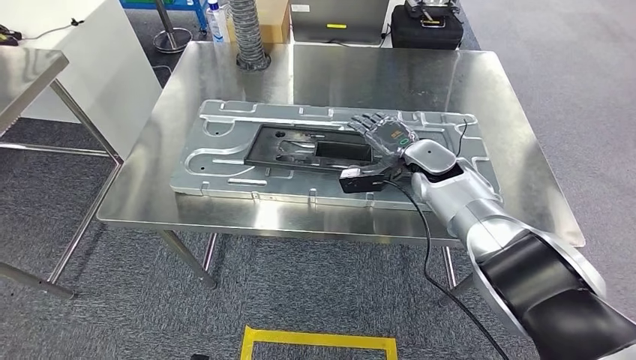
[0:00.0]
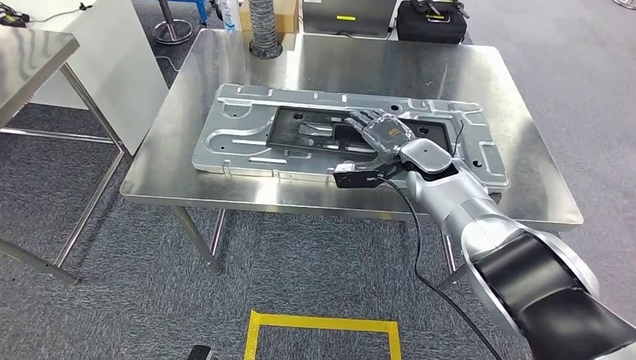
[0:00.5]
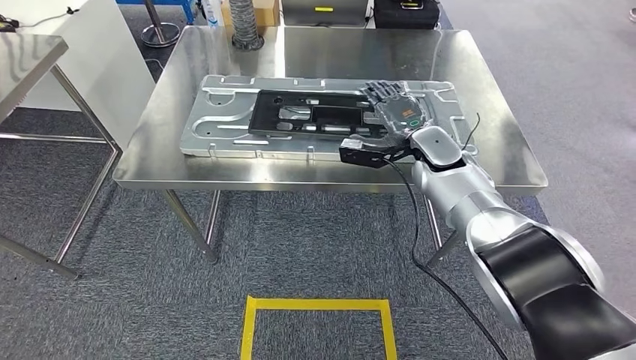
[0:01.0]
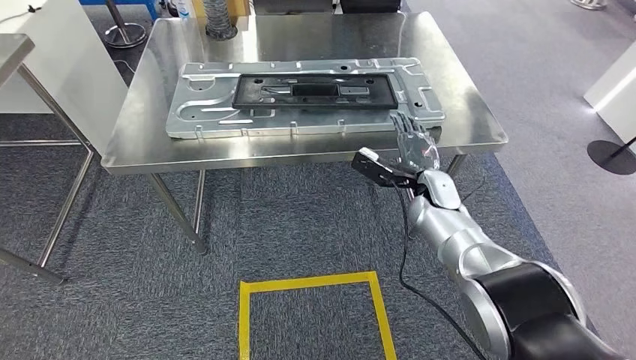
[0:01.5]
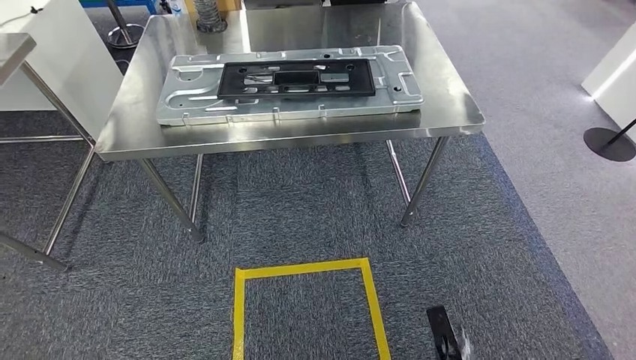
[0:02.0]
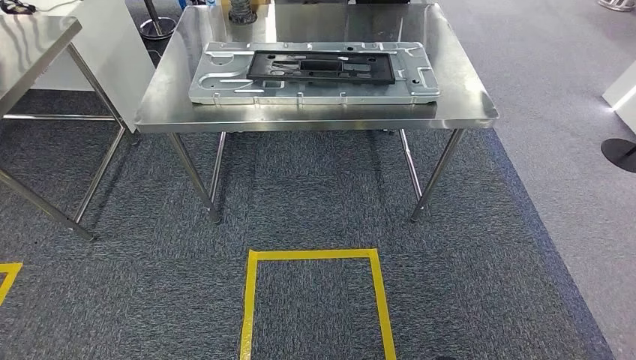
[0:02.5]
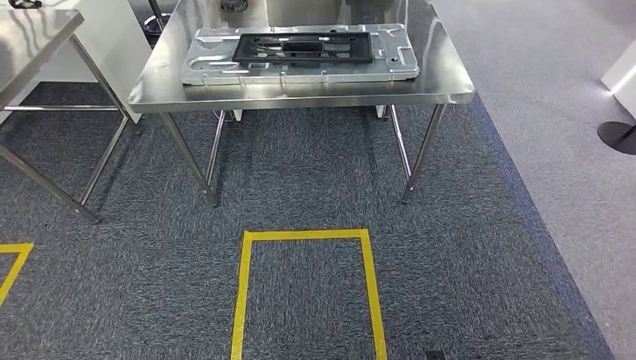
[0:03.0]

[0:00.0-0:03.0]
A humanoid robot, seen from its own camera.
Step, 0:01.5 to 0:03.0: Move to the initial position of the shelf.

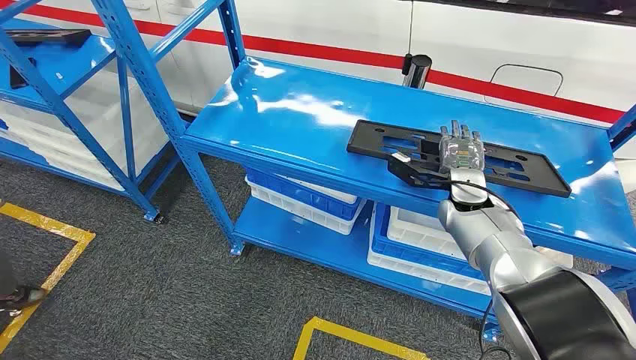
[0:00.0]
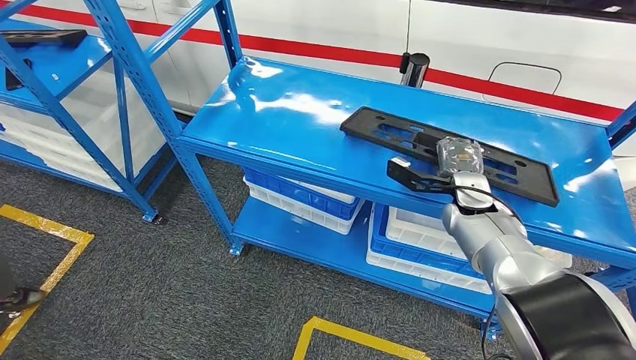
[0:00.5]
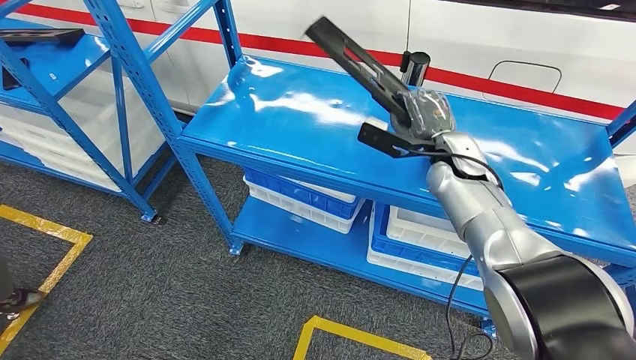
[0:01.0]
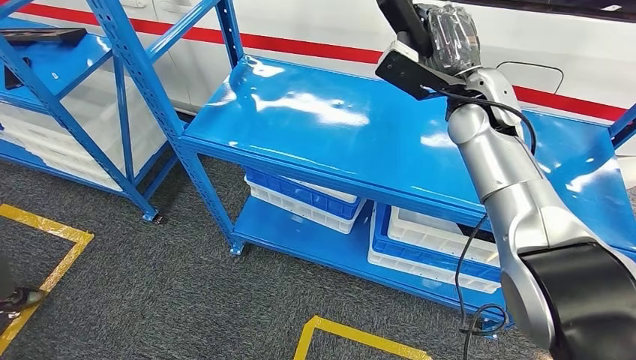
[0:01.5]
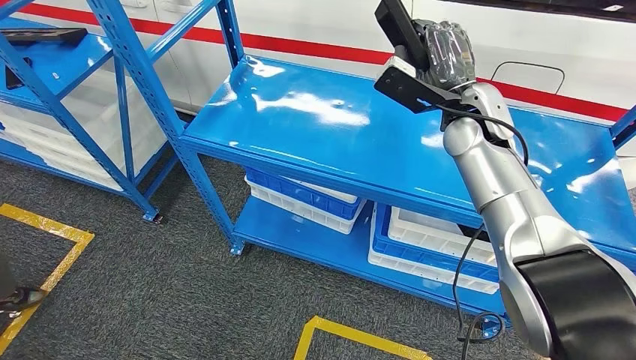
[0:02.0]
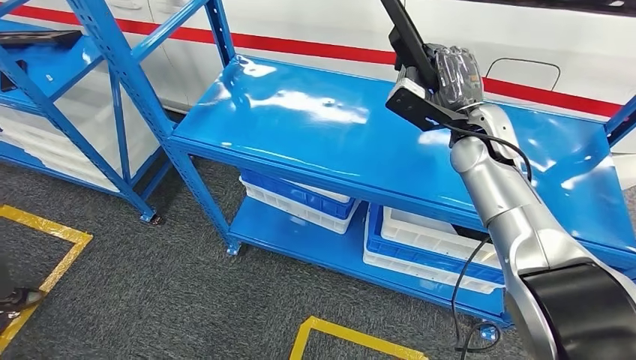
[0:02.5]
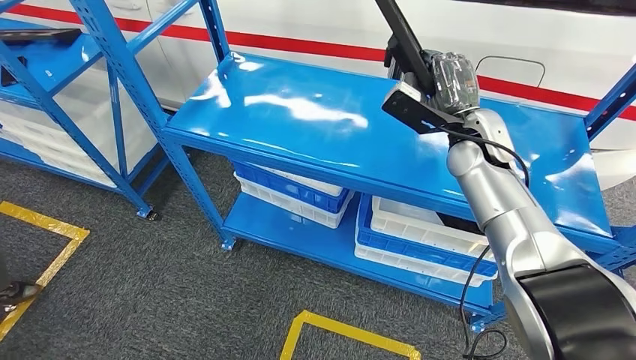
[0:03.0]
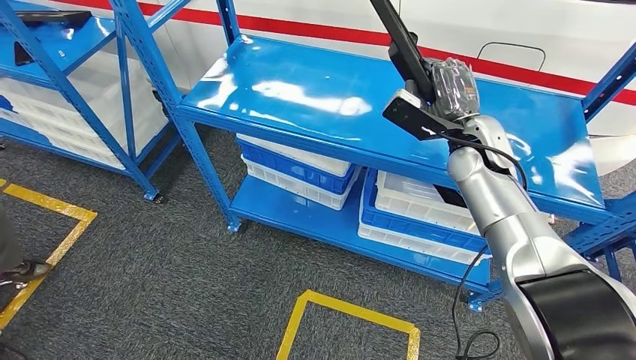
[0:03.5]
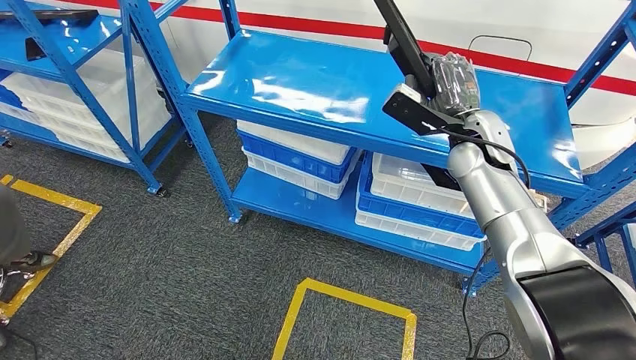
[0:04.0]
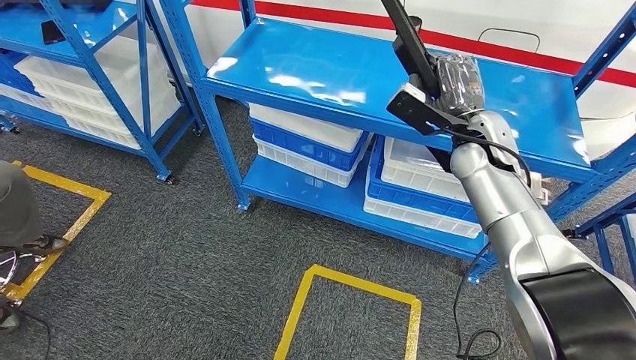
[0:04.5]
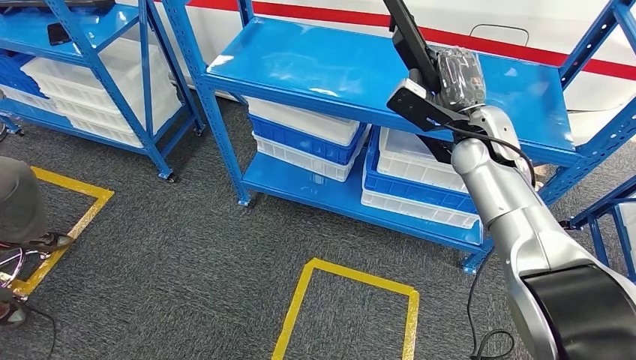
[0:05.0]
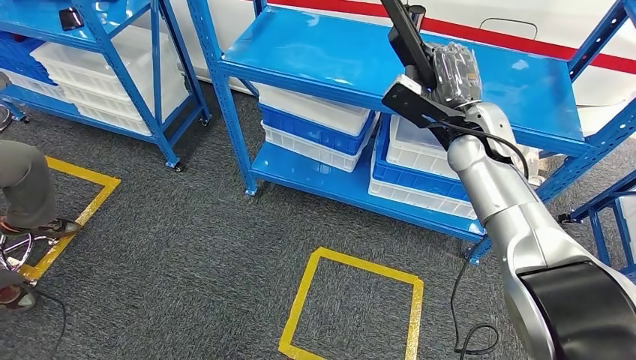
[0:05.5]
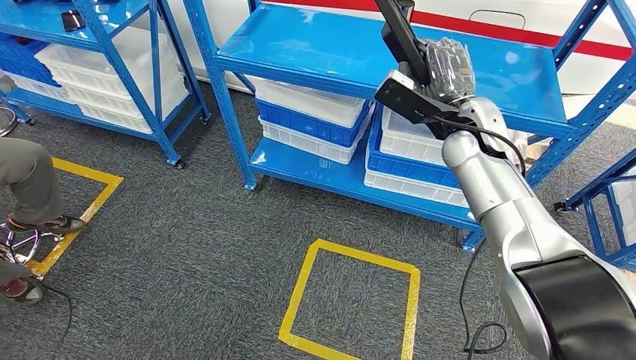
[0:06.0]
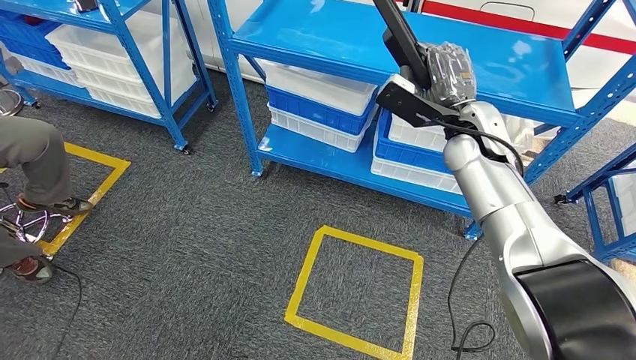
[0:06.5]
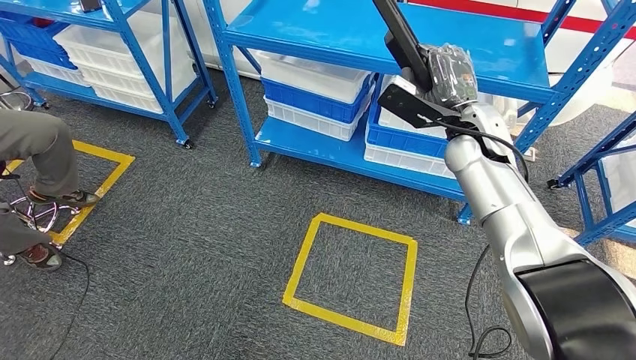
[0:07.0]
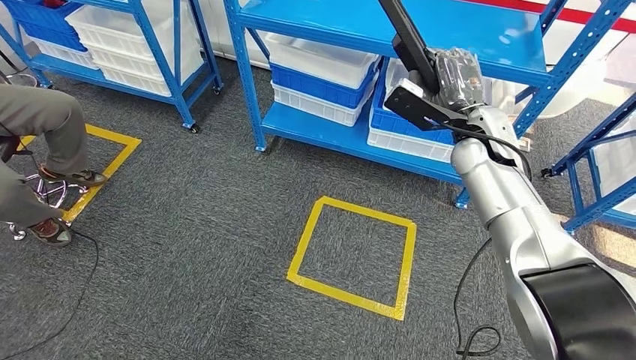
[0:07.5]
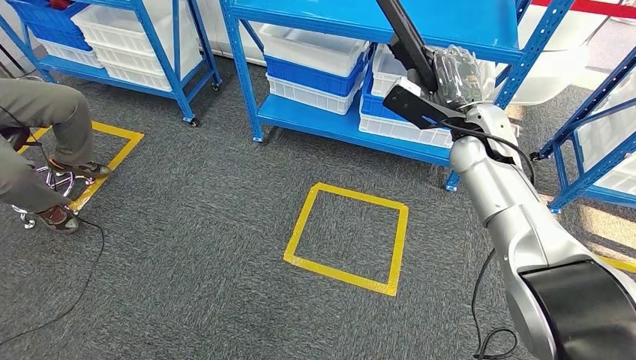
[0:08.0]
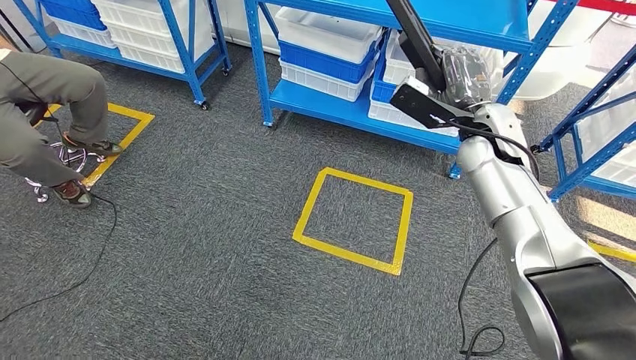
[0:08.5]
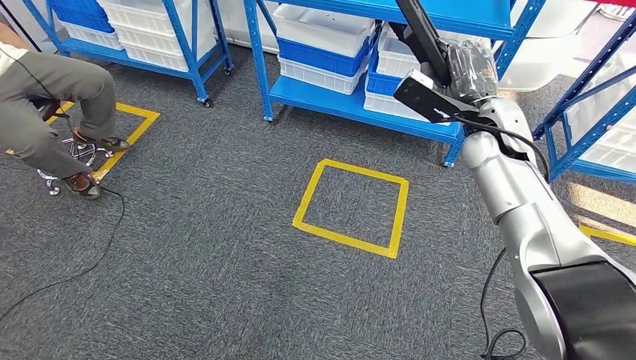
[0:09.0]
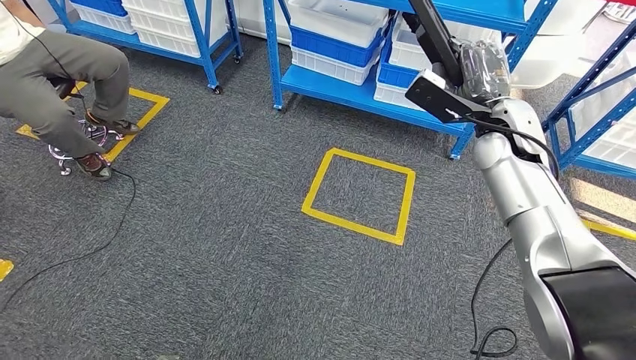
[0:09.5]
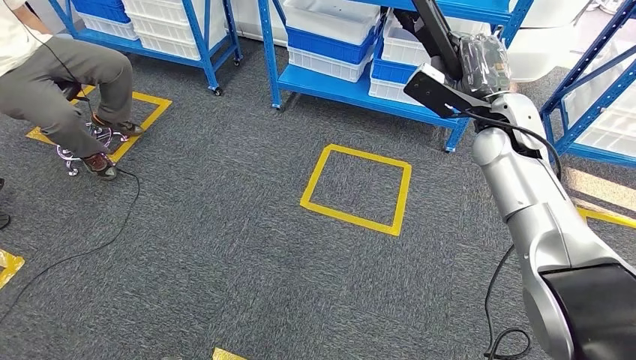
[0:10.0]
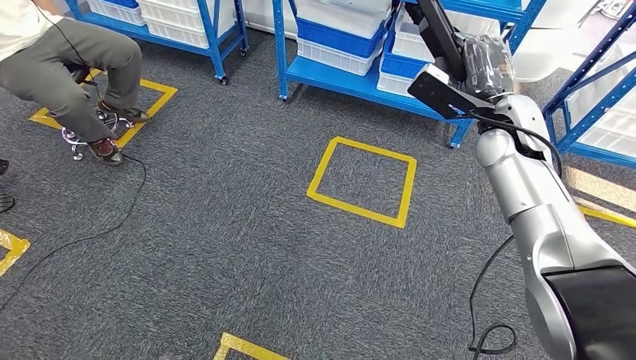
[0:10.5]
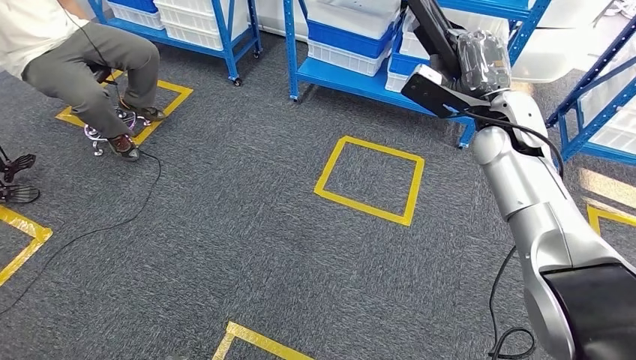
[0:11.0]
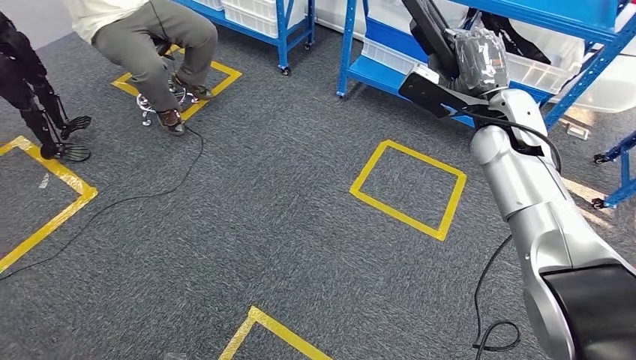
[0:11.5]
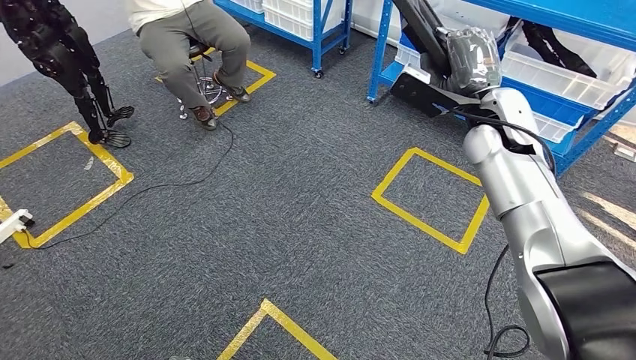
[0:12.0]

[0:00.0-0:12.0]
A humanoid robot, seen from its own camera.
Step, 0:00.0 to 0:04.5: Pick up the large material from the shelf.

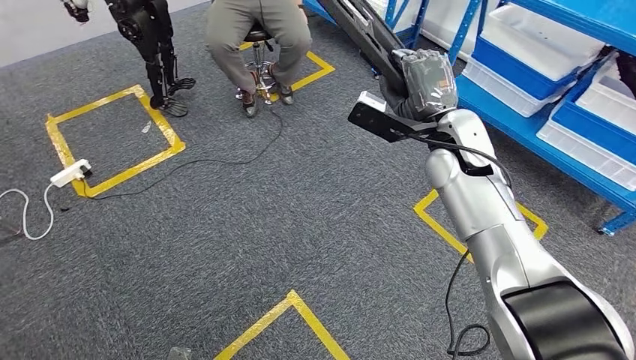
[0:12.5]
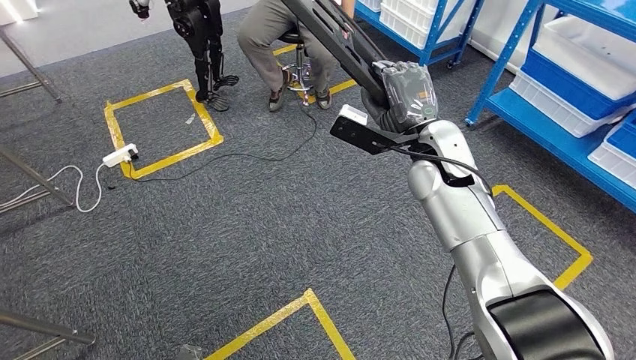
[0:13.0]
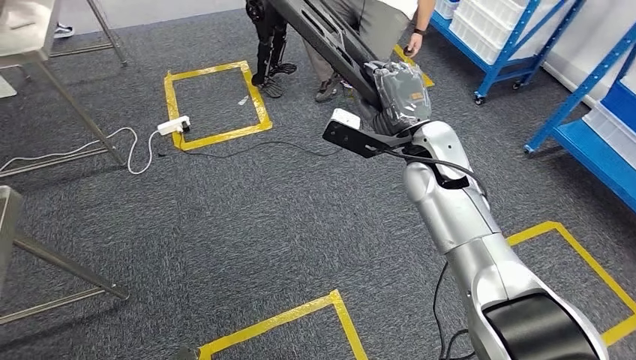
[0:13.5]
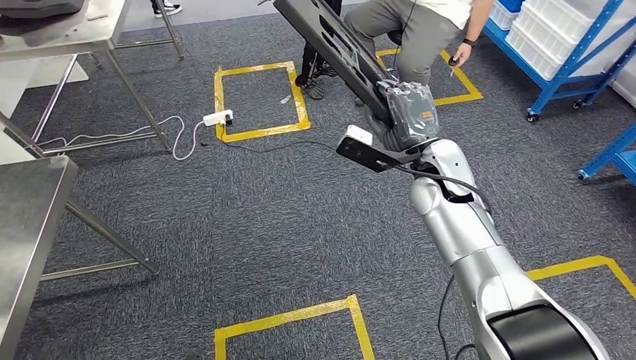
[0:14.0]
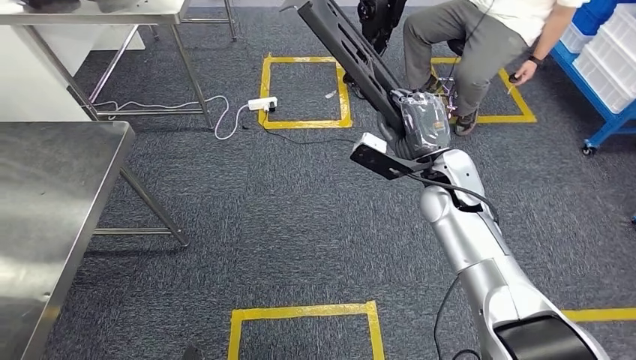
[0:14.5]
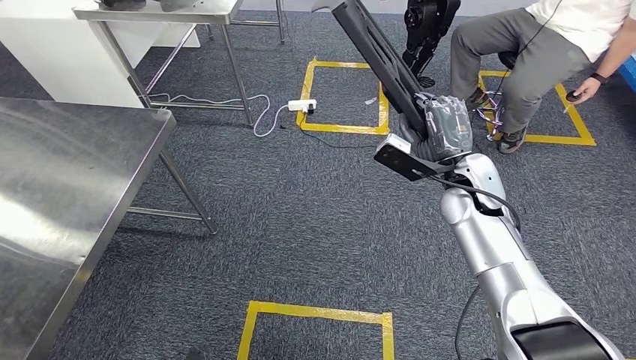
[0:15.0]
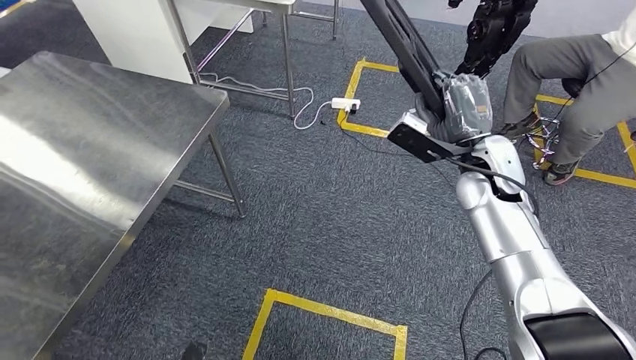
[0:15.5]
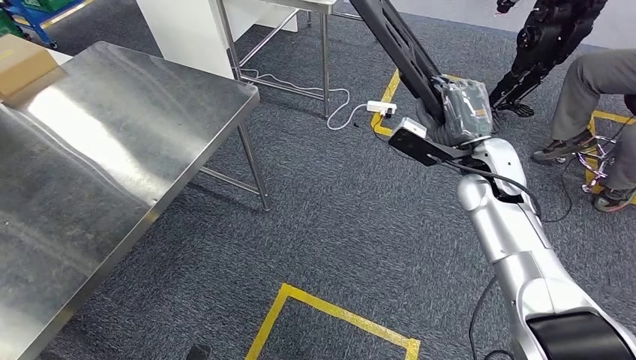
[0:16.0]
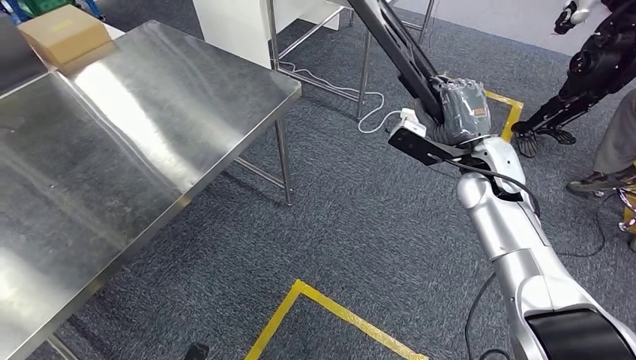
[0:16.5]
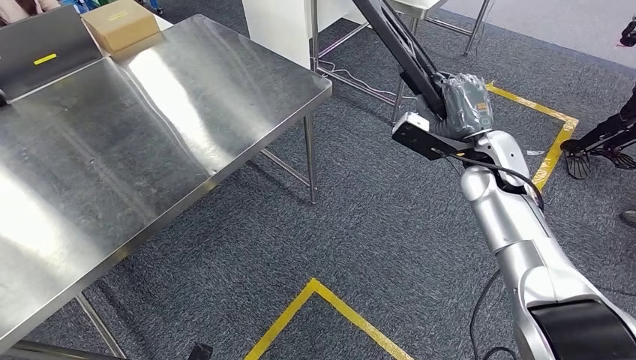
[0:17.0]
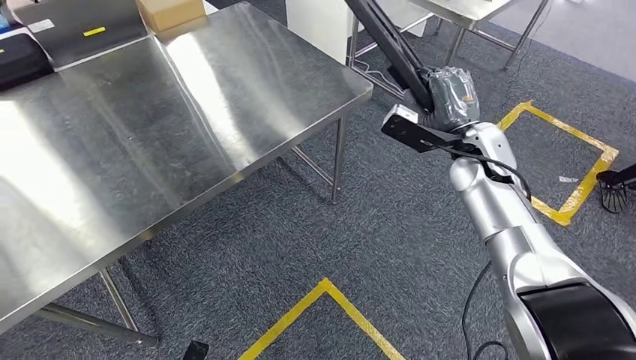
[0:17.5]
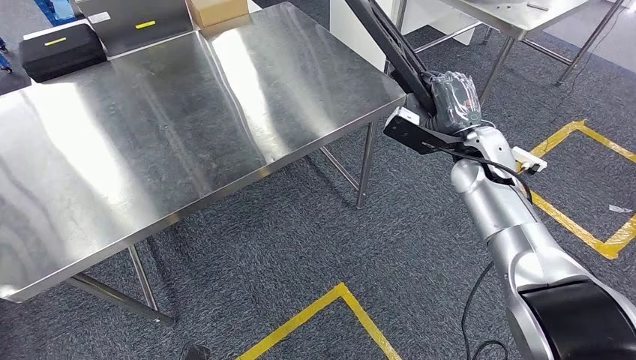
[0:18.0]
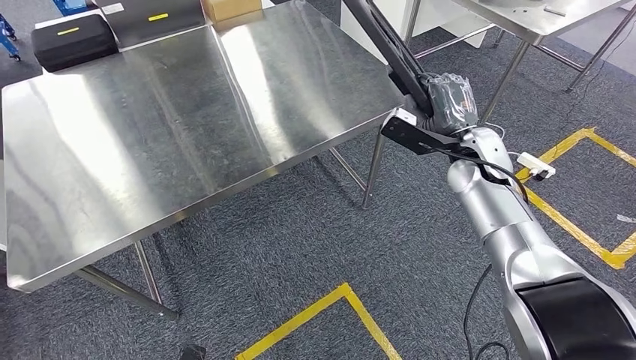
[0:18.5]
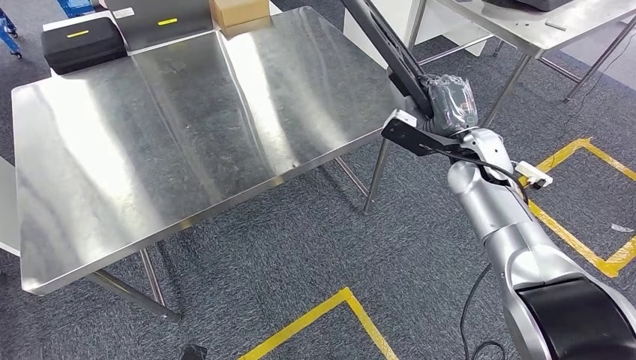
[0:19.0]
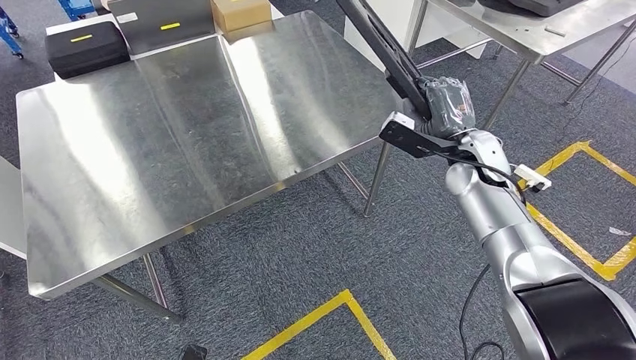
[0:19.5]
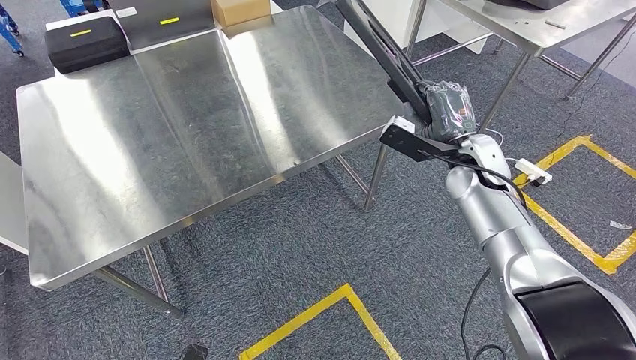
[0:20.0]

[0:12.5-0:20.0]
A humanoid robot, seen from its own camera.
Step, 0:12.5 to 0:17.5: Move the large material to the workbench.
